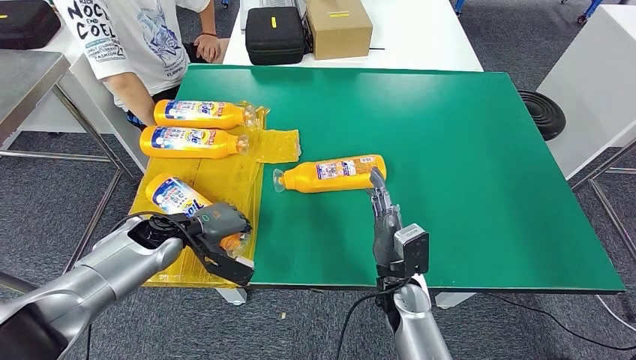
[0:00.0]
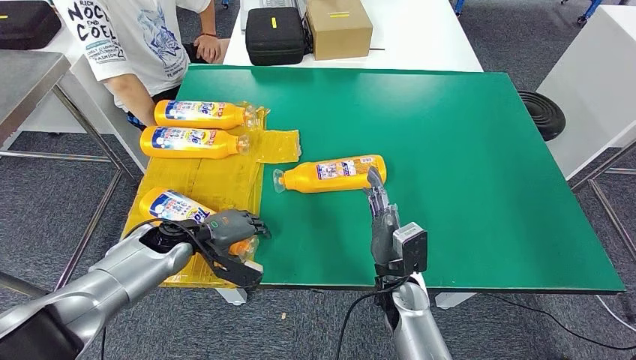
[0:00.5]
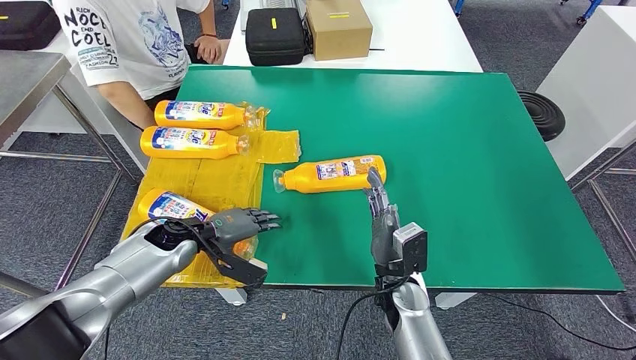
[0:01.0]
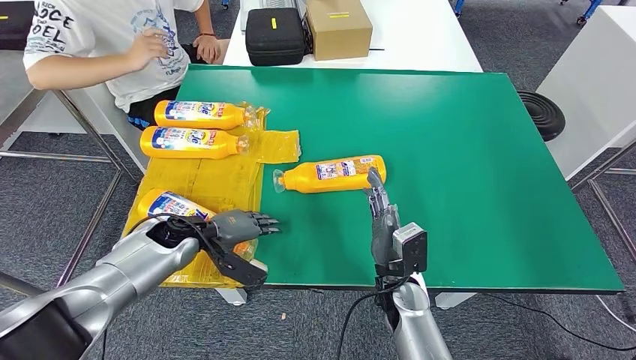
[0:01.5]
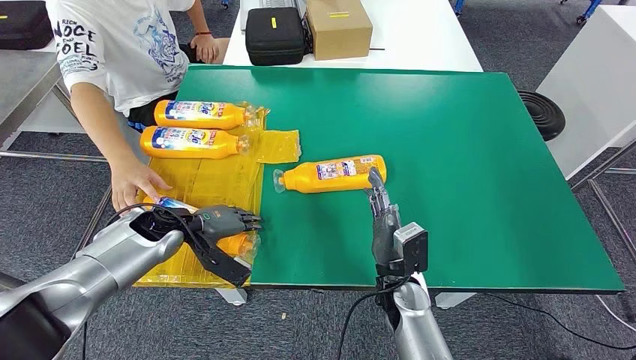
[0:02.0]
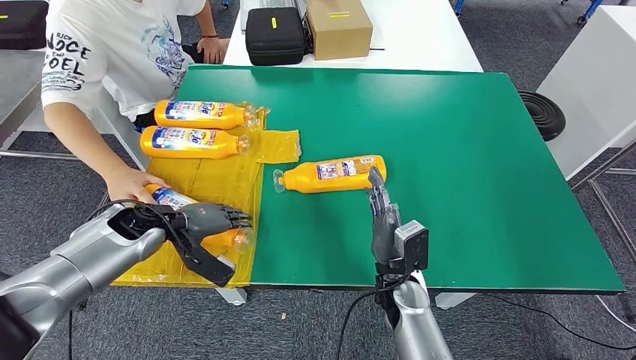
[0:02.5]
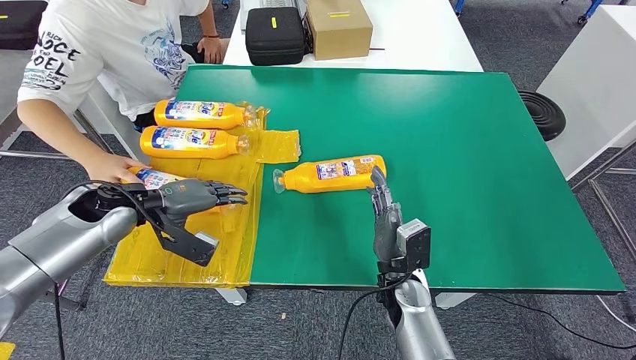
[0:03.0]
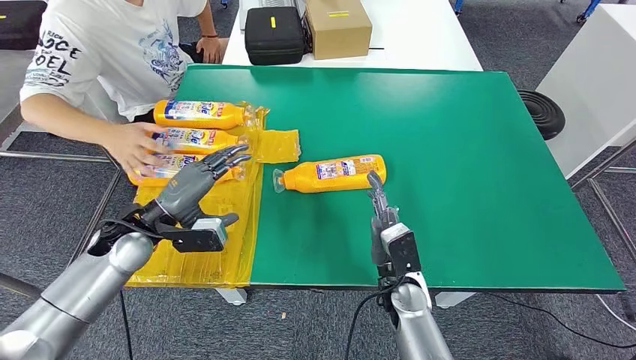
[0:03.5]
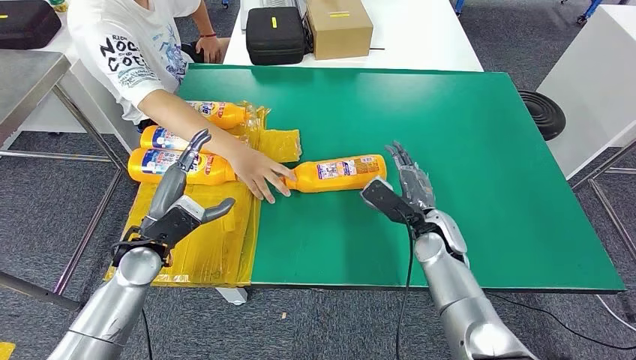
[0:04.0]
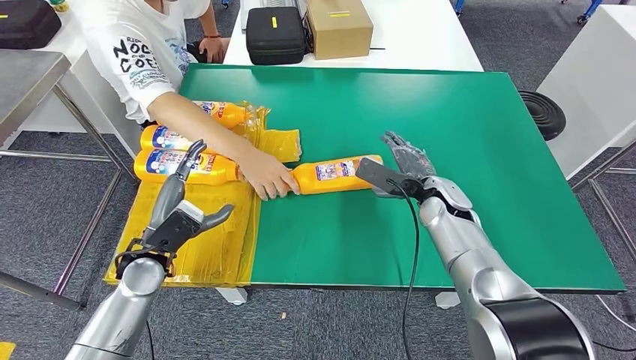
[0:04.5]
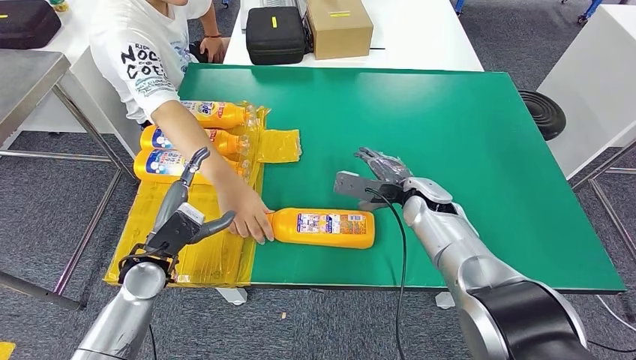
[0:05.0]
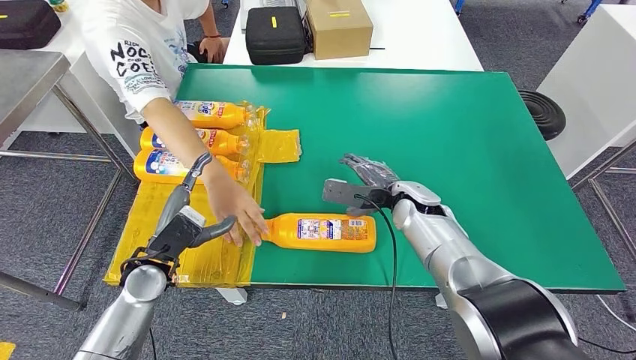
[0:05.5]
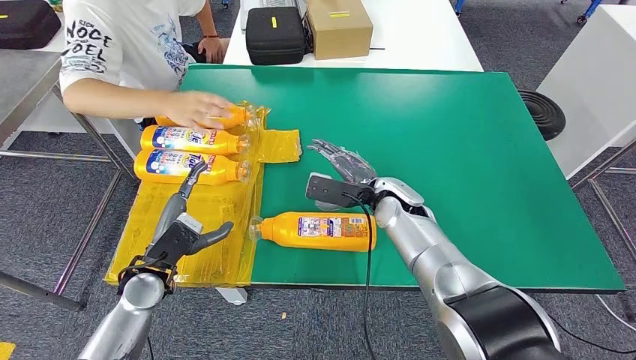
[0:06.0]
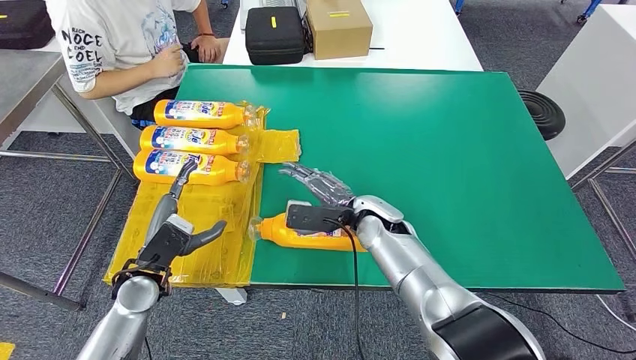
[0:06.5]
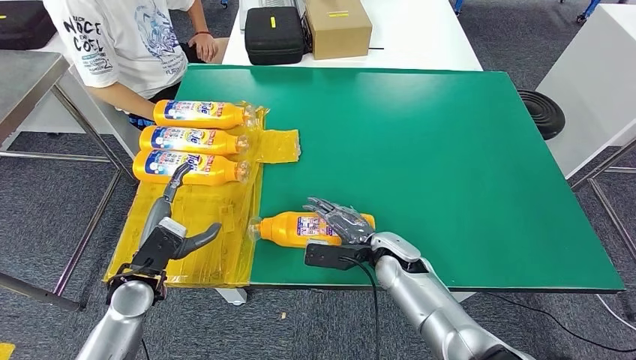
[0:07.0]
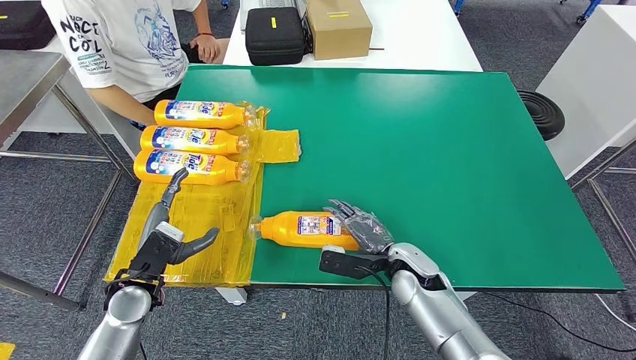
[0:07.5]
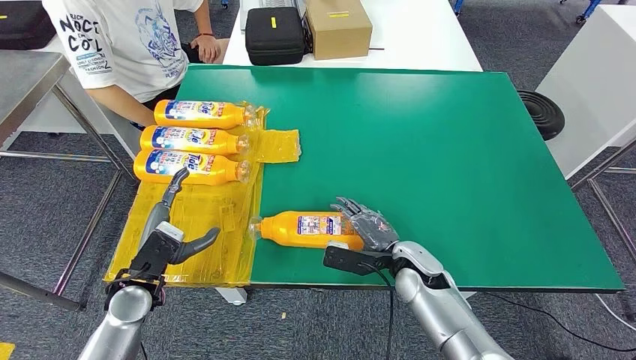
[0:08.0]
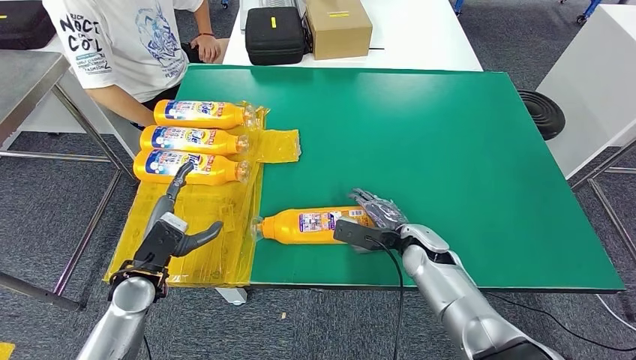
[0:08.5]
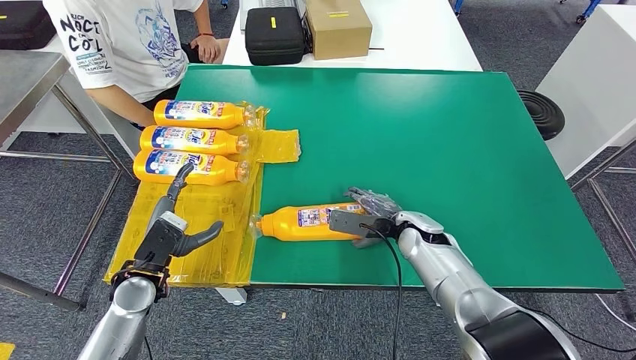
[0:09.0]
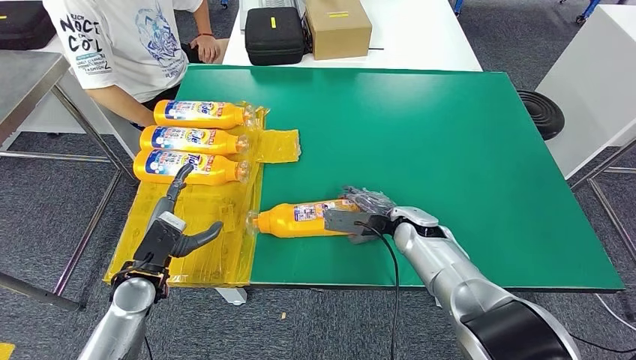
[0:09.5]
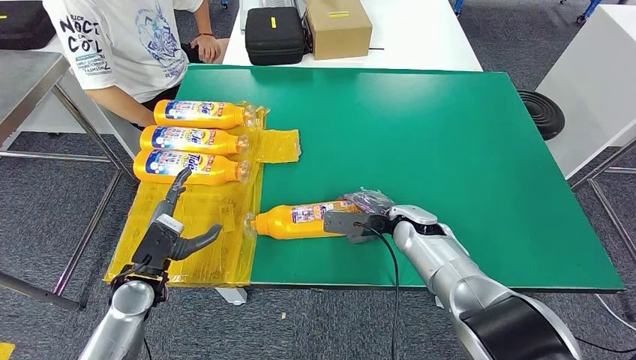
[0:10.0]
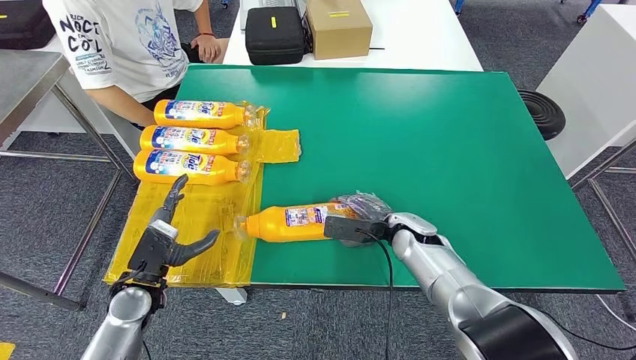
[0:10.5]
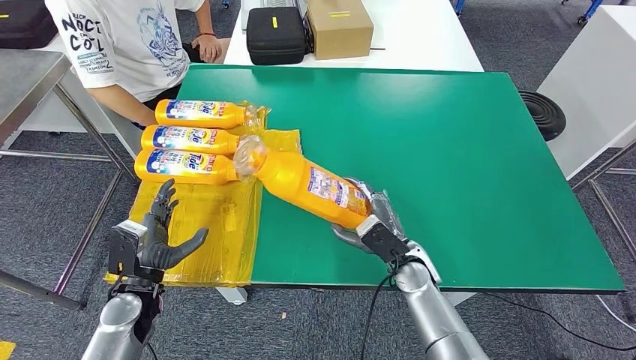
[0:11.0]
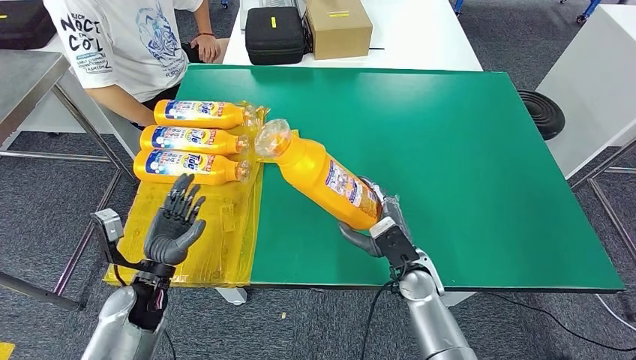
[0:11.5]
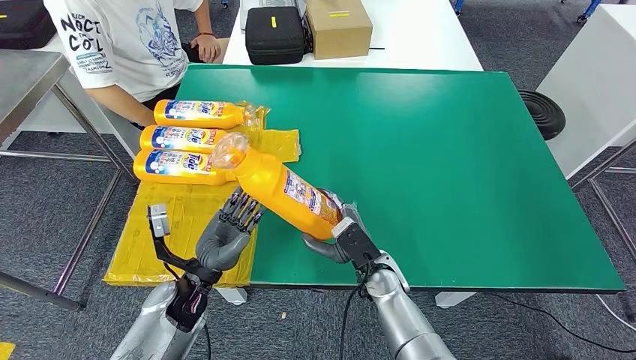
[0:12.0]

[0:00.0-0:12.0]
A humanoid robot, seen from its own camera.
Step, 0:00.0 to 0:02.0: Flip the fast-moving consumer goods bottle to the front side.
Step, 0:08.0 to 0:11.5: Pick up the fast-moving consumer goods bottle from the table.
0:00.0 to 0:02.0: The hands stay close to where they were, moving slightly.
0:06.0 to 0:08.0: The right hand moves backward and downward, about 15 cm.
0:08.0 to 0:10.0: The right hand goes some 10 cm forward.
0:10.0 to 0:12.0: The right hand is displaced backward and to the left by some 10 cm. The left hand is displaced to the right by roughly 10 cm.

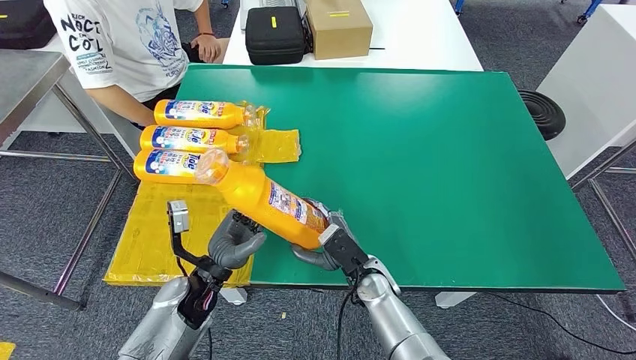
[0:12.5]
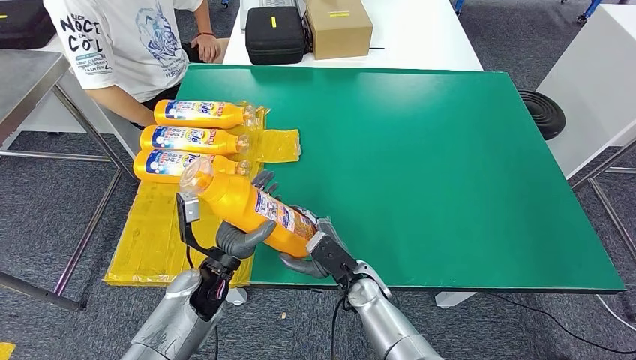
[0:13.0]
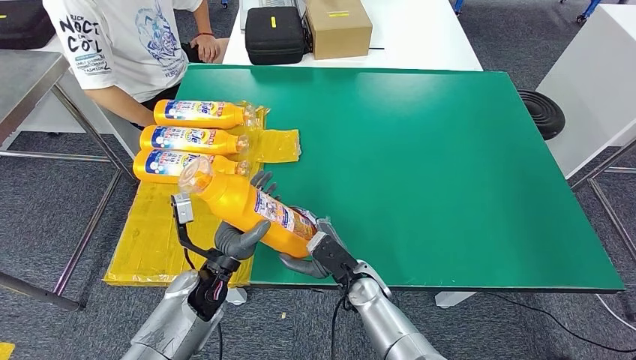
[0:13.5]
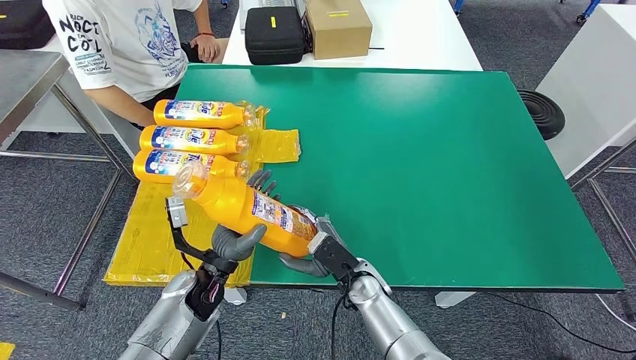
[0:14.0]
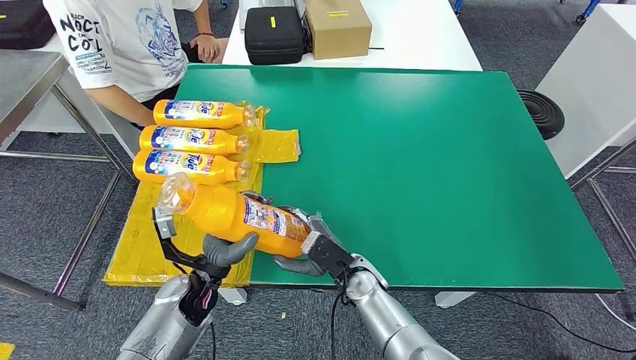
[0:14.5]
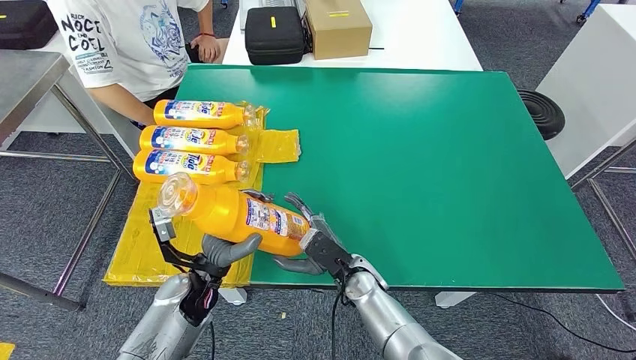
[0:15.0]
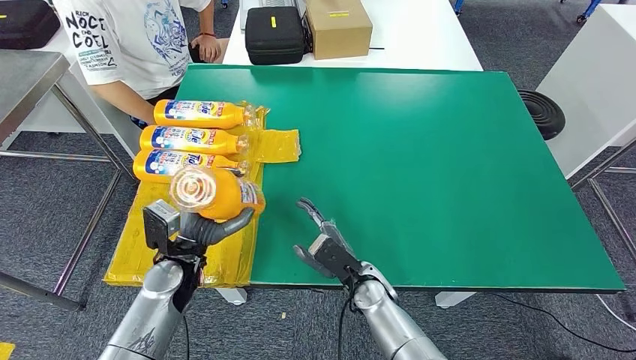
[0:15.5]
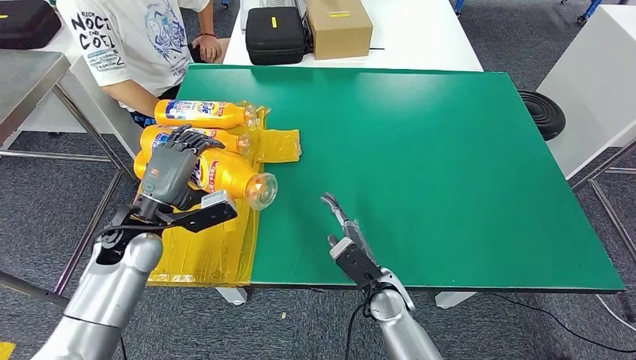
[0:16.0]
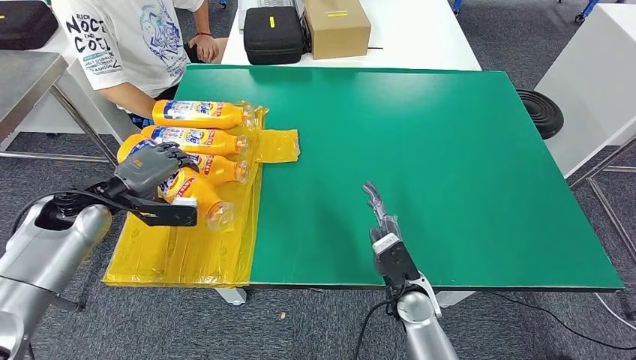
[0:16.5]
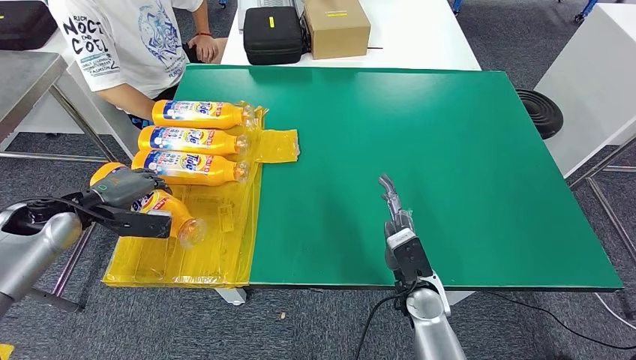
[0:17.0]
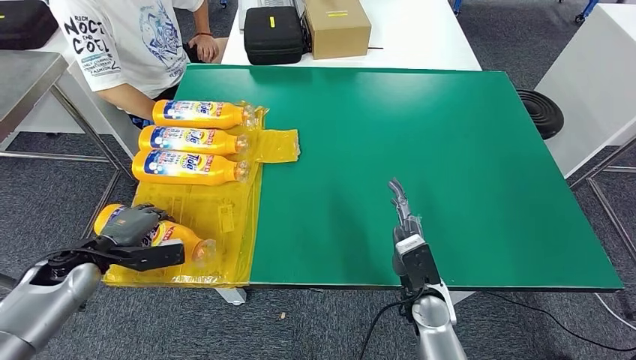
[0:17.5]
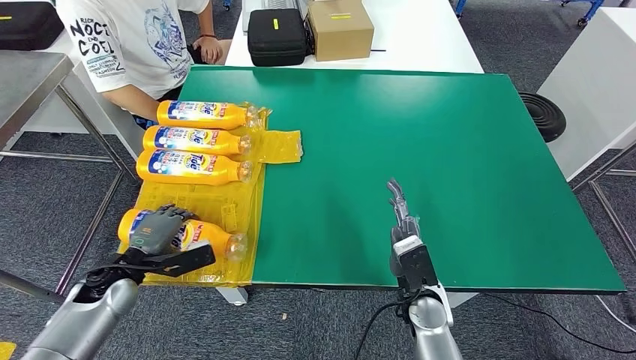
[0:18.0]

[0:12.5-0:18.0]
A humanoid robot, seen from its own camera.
Step, 0:13.0 to 0:18.0: Flip the fast-moving consumer goods bottle to the front side.
0:12.5 to 0:14.5: The hands move only a little.
0:14.5 to 0:16.0: The left hand heads upward, to the left and forward, covering roughly 15 cm. The right hand changes place by roughly 5 cm.
0:16.0 to 0:18.0: The left hand moves downward and to the left, some 15 cm. The right hand moves to the right, approximately 5 cm.
